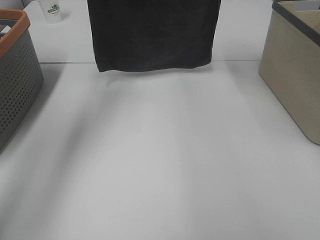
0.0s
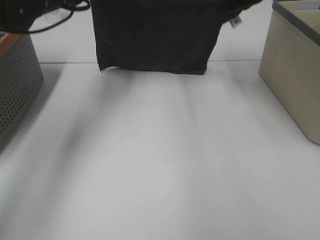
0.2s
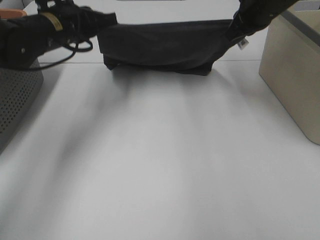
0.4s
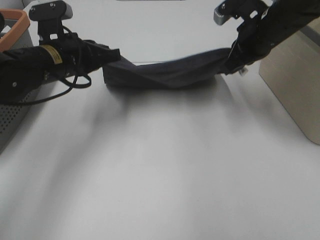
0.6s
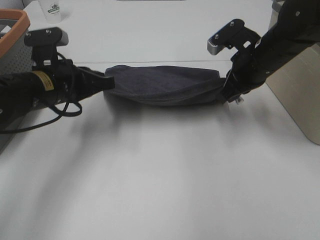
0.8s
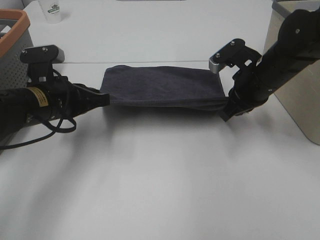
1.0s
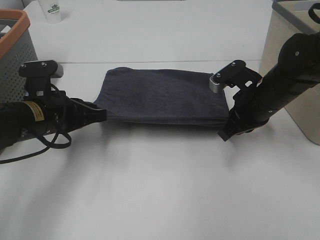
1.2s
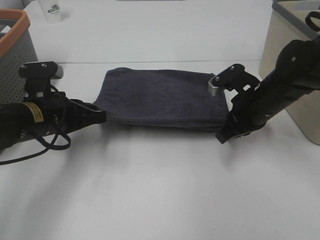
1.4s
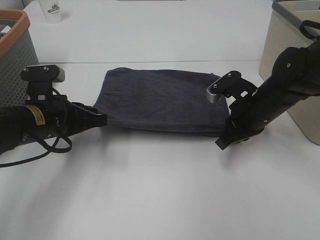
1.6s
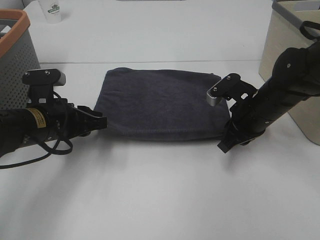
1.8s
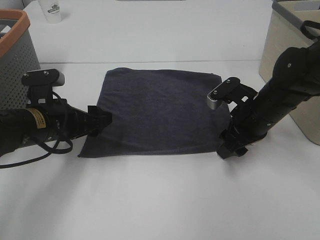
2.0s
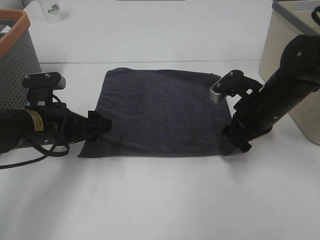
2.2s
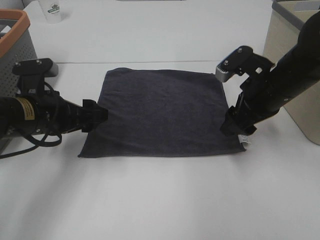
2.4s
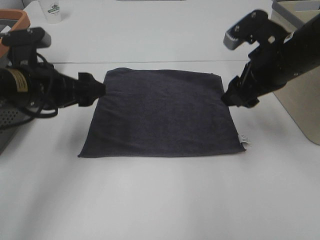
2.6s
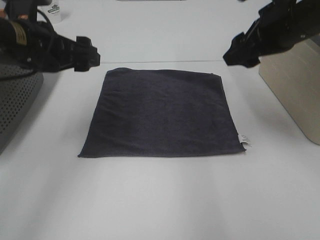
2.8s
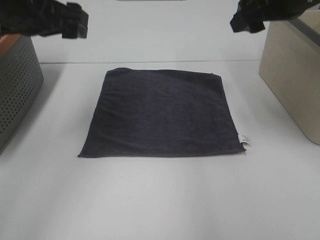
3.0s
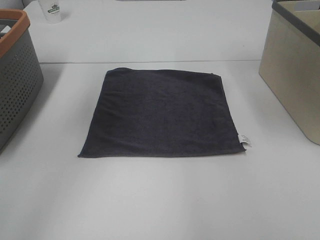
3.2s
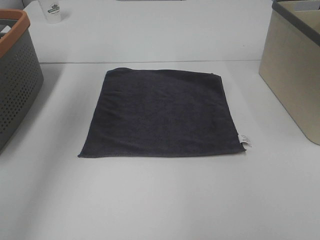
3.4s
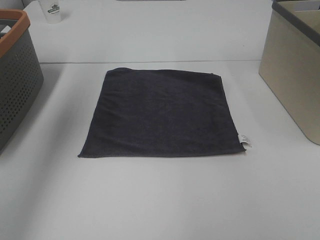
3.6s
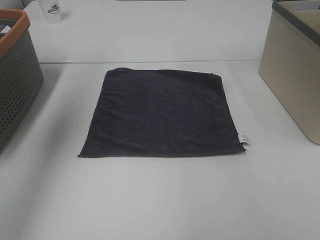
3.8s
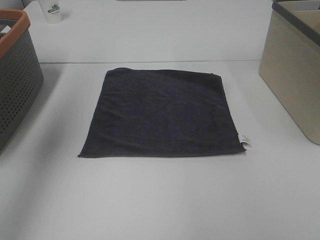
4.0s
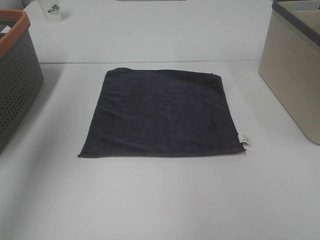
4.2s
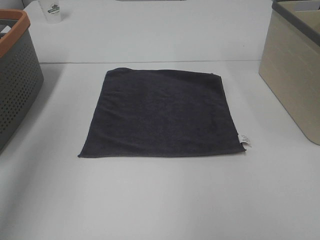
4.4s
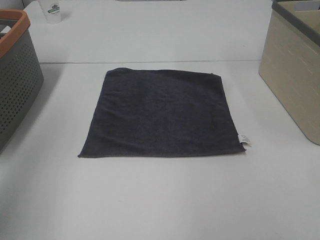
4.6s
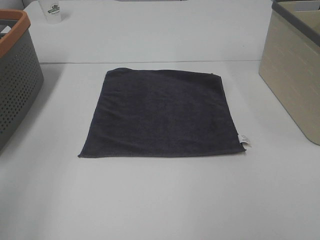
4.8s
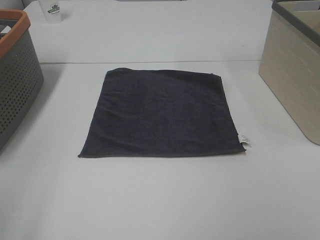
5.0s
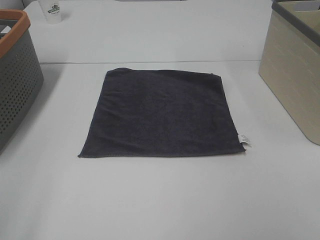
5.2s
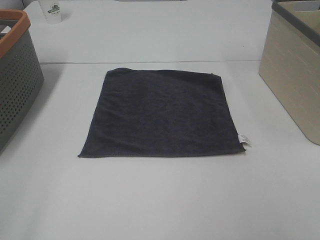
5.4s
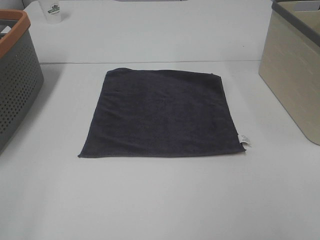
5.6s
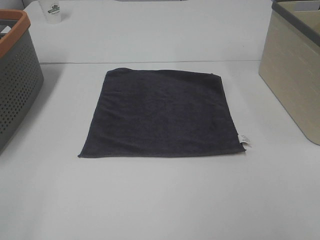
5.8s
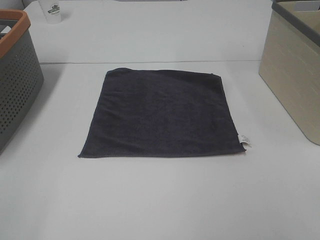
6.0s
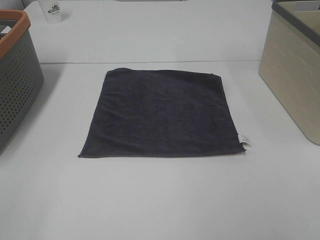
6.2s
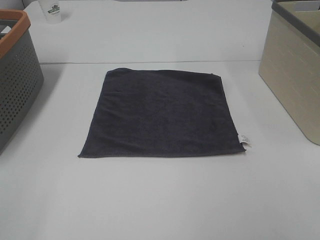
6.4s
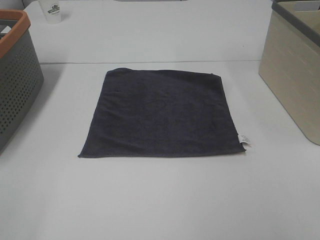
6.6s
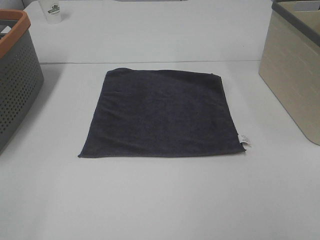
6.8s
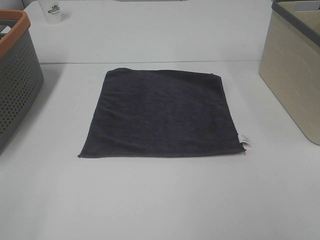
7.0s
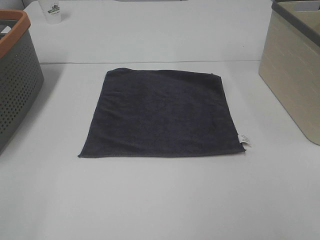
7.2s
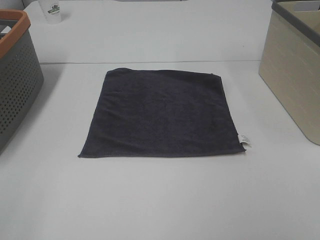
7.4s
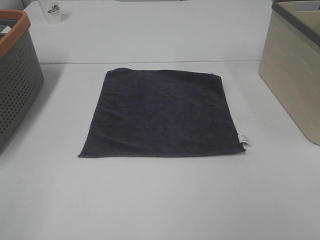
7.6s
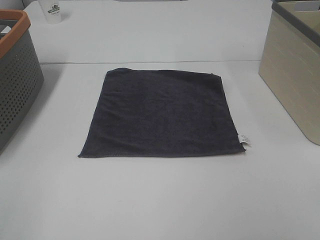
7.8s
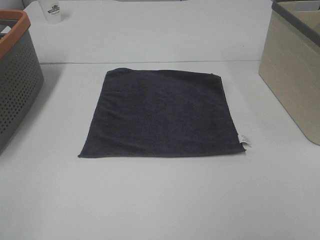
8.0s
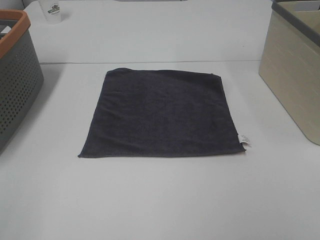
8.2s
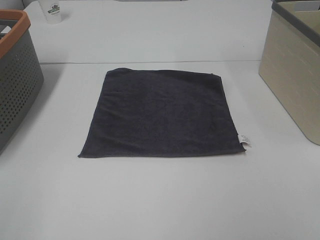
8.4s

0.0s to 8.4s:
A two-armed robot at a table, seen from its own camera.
Task of the whole recording: Remove the towel and place it.
0.0s to 1.4s: Both grippers travel together downward and backward, about 25 cm.
1.4s to 2.8s: Both grippers move upward, about 15 cm. The right gripper opens its fingers. Meanwhile the left gripper opens.
2.8s to 4.2s: The right gripper goes approximately 20 cm upward and backward. The left gripper is displaced upward and to the left by some 25 cm.
4.2s to 5.6s: The left gripper shifts some 30 cm backward and downward.

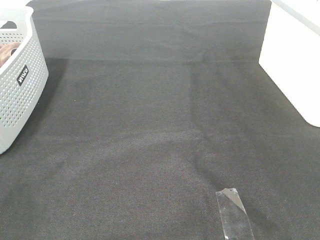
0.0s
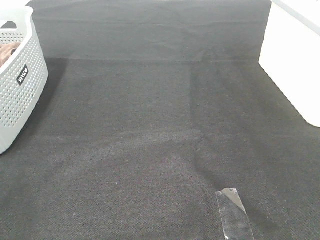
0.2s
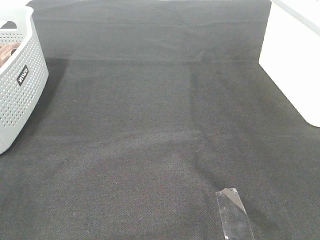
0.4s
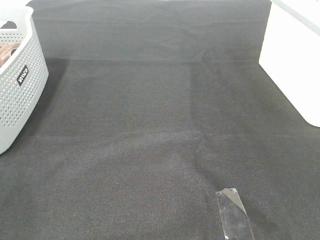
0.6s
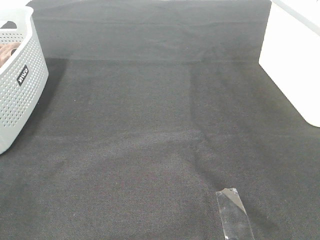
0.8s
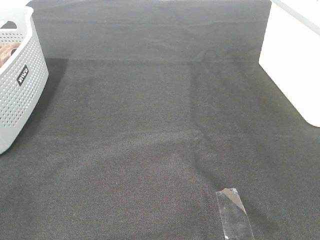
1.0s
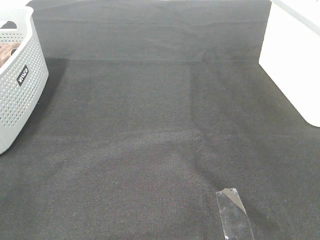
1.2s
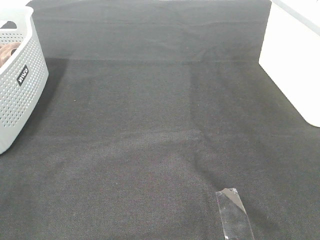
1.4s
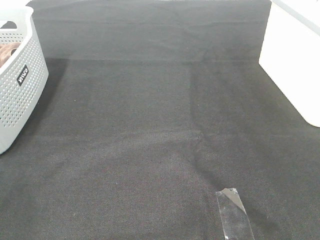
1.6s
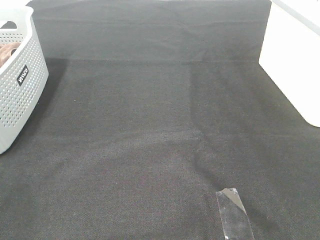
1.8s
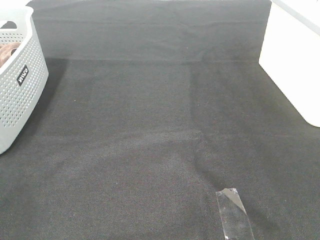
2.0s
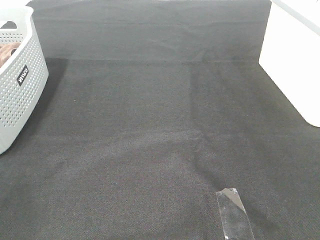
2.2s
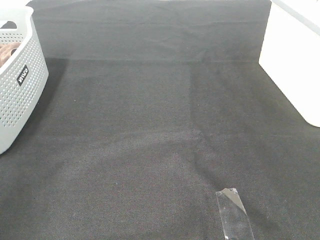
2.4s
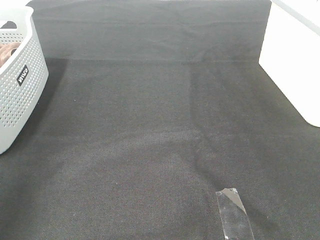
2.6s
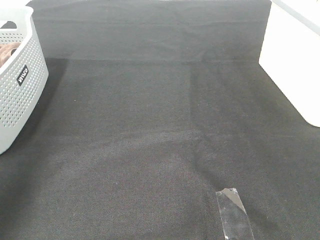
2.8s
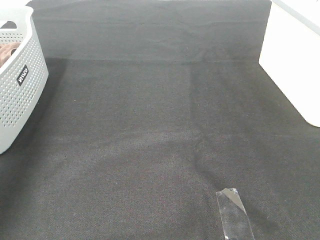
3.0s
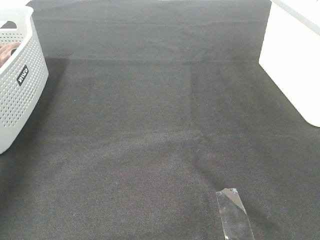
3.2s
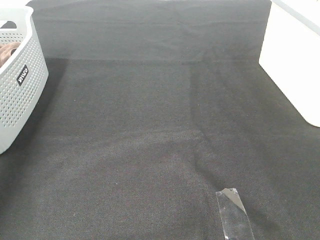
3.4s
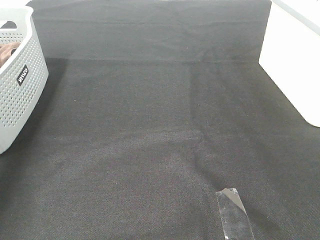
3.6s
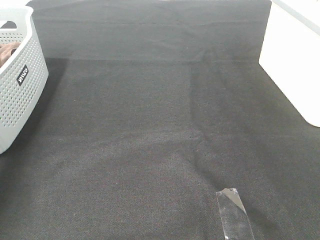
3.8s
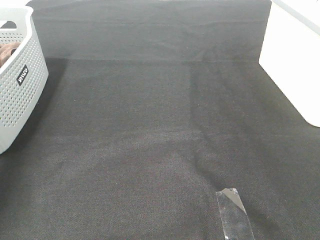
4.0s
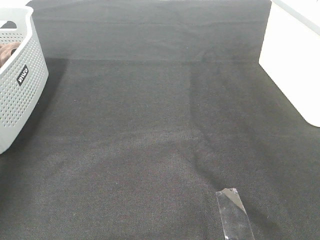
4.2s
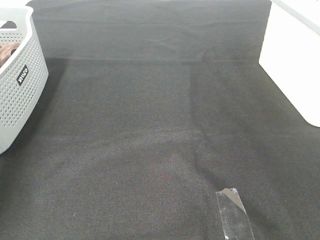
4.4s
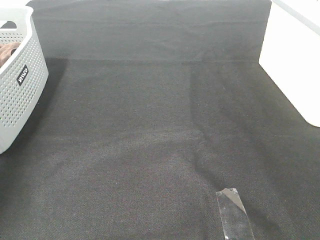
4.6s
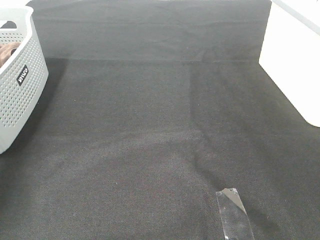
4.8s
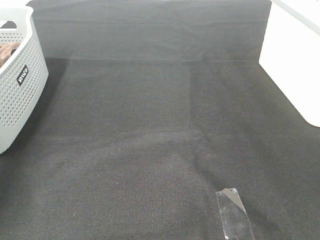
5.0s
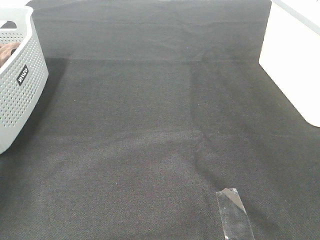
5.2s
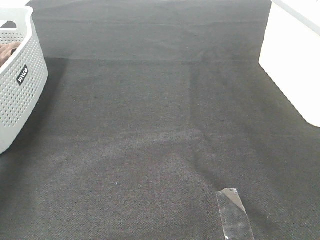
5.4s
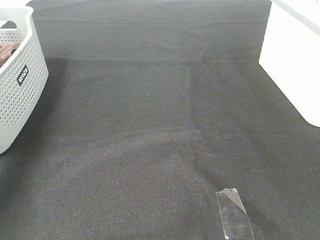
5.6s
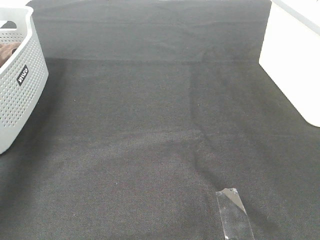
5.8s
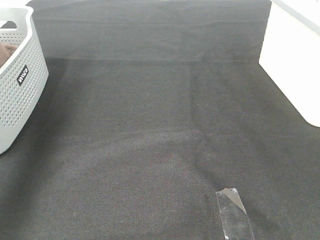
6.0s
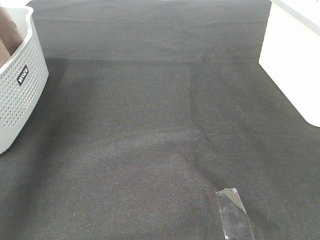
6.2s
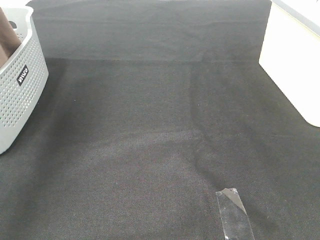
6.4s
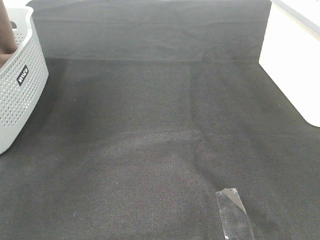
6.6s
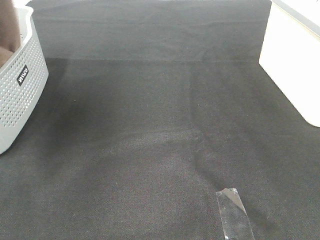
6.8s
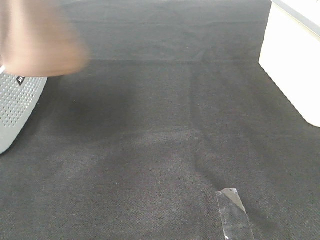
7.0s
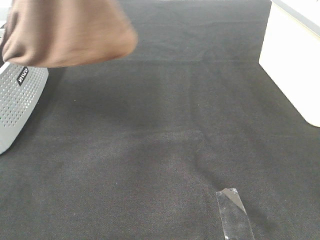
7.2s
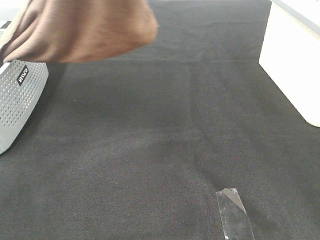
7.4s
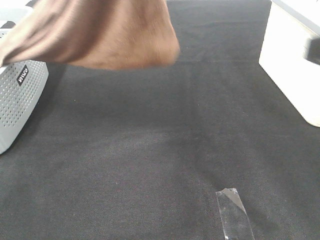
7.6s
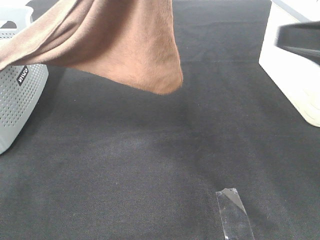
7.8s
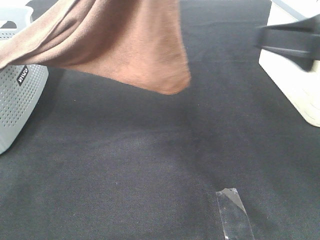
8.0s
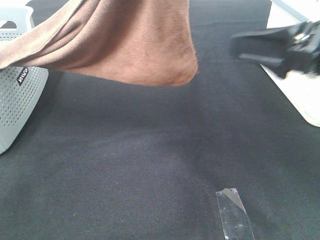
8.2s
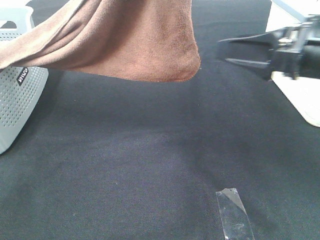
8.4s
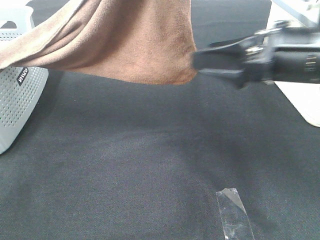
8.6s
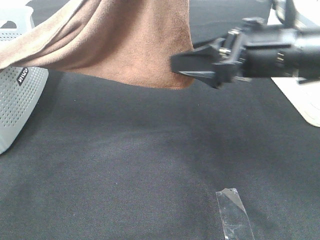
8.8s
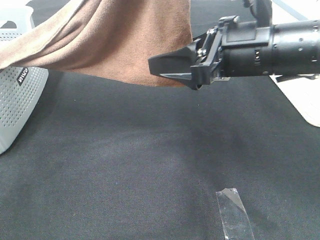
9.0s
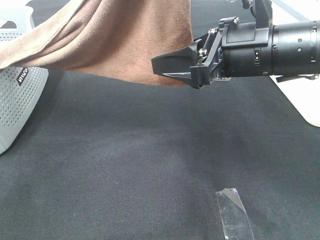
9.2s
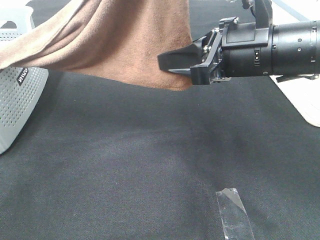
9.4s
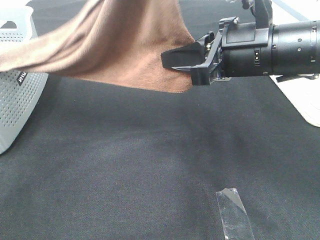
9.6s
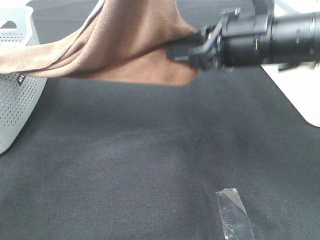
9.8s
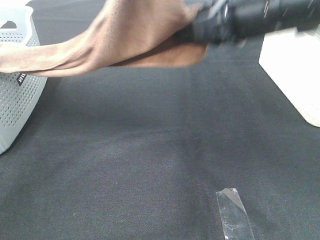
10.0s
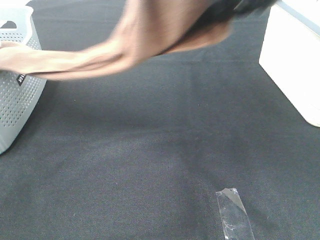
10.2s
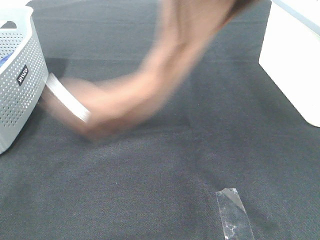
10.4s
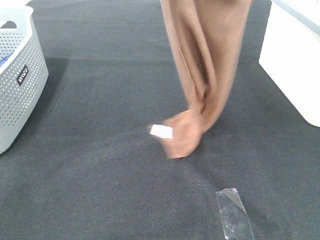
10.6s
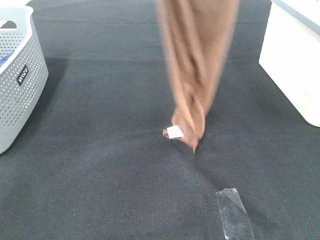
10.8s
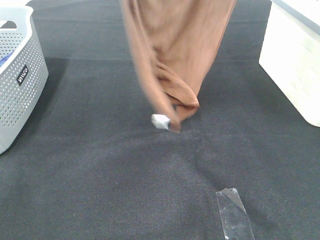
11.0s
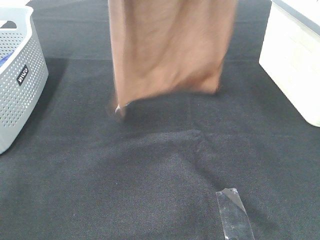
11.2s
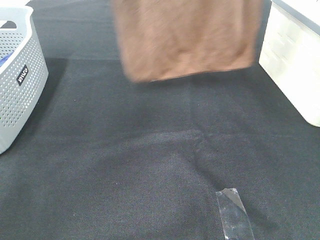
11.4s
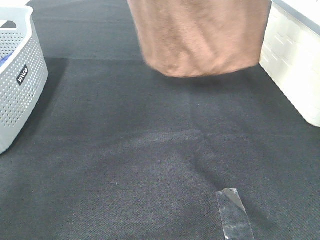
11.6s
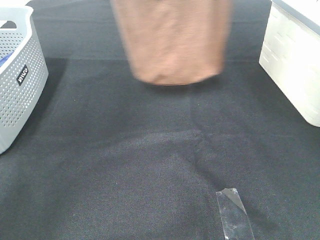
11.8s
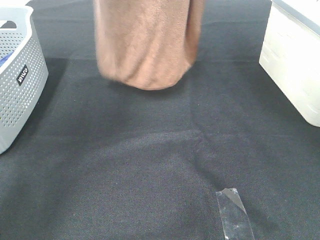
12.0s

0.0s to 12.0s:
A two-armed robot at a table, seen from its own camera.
Task of the whole recording: Remove the towel and place it.
Step, 7.0s to 9.4s: Right hand: grab a corner of the brown towel and straighten it.
0.0s to 1.6s: Neither gripper changes place.
1.6s to 3.0s: The left gripper is displaced forward and upward by roughly 30 cm.
4.4s to 6.0s: The left gripper travels upward and backward by approximately 25 cm.
6.0s to 7.6s: The right gripper travels forward by roughly 15 cm, and opens. Meanwhile the left gripper shifts about 25 cm to the right.
7.6s to 9.0s: The right gripper shifts some 20 cm forward, to the left and downward.
9.0s to 10.4s: The right gripper shifts about 20 cm upward, and closes up.
10.4s to 12.0s: The right gripper goes about 15 cm forward and upward; the left gripper goes some 20 cm forward and to the left.

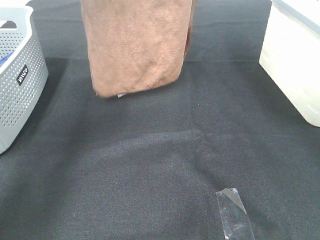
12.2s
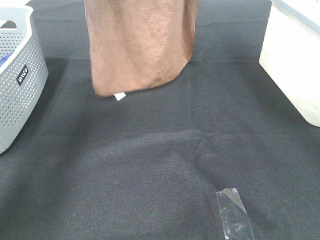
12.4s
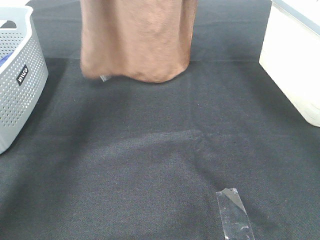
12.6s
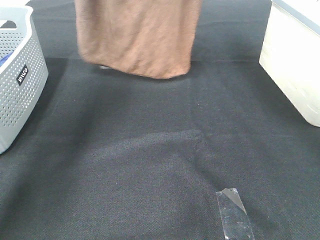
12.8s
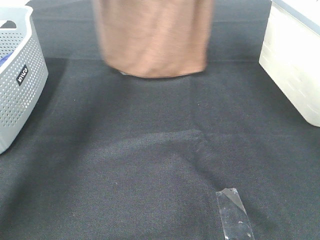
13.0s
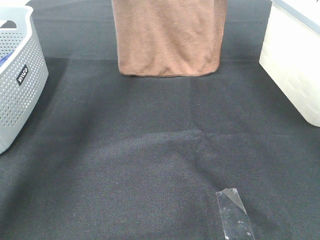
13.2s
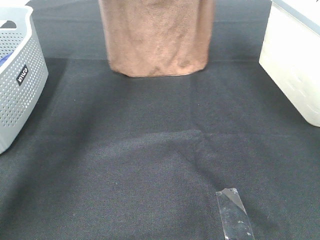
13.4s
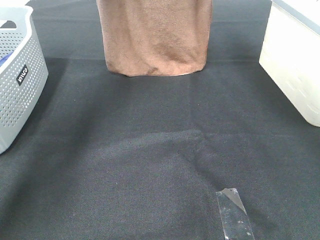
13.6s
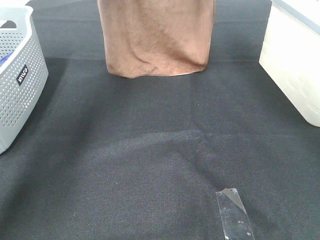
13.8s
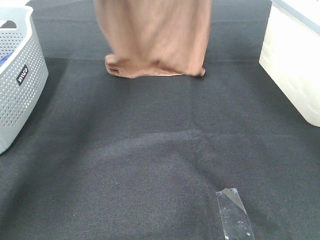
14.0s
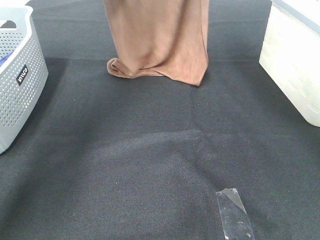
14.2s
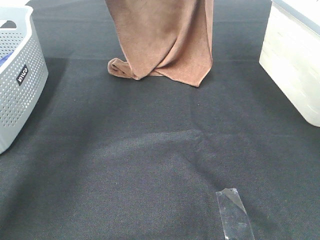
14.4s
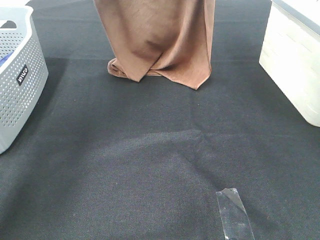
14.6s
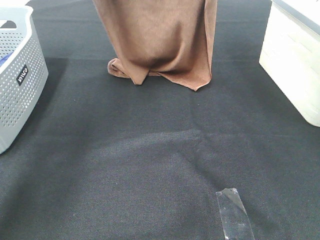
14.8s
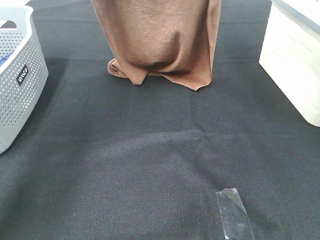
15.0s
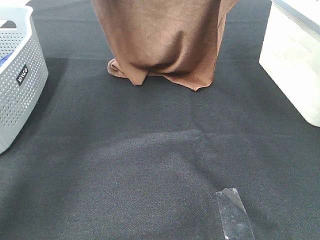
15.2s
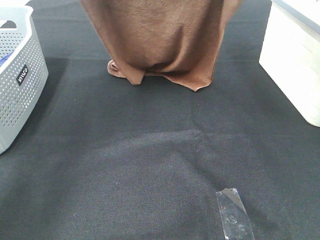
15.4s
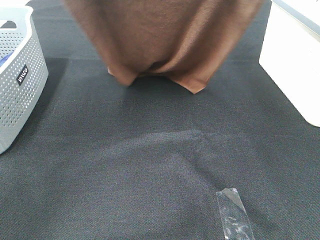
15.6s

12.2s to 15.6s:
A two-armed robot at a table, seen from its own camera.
Task of the whole recording: Remove the towel and place it.
12.2s to 13.8s: The left gripper heads forward, covering about 5 cm; the right gripper shifts by roughly 5 cm.
13.8s to 15.6s: The grippers both shift backward by some 15 cm.
